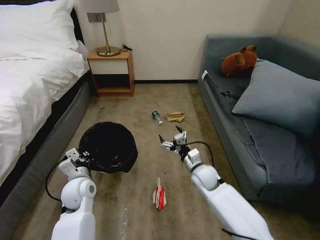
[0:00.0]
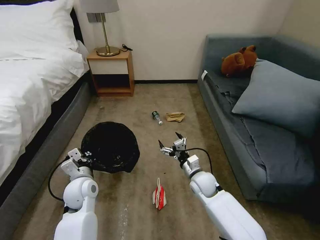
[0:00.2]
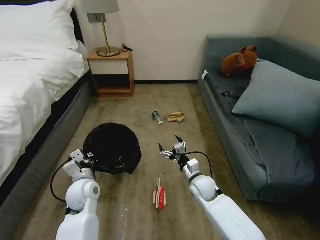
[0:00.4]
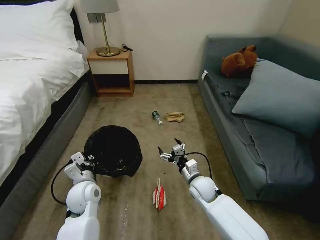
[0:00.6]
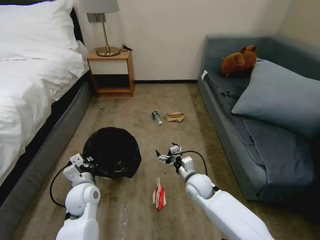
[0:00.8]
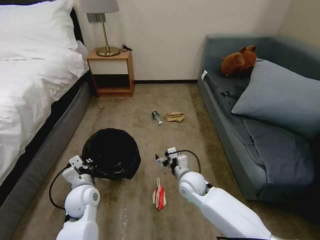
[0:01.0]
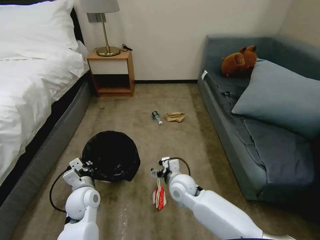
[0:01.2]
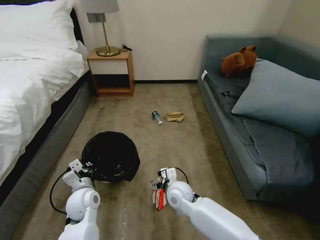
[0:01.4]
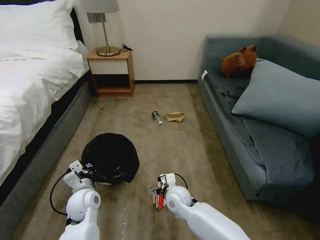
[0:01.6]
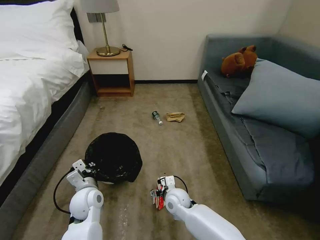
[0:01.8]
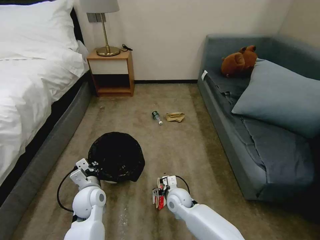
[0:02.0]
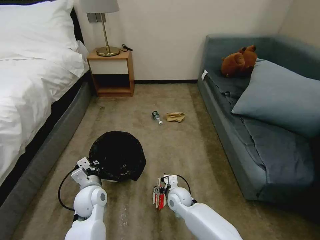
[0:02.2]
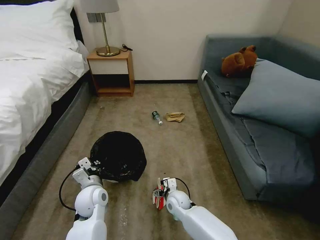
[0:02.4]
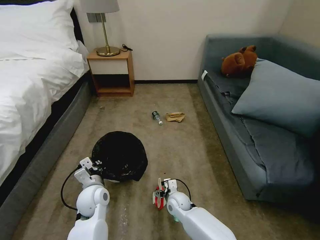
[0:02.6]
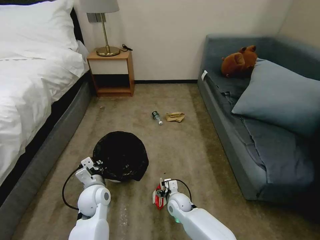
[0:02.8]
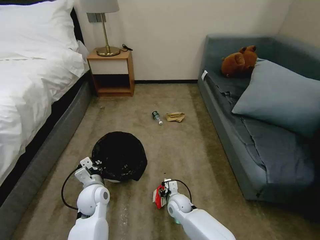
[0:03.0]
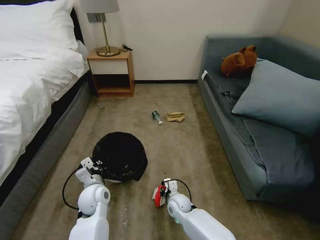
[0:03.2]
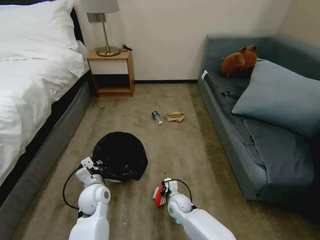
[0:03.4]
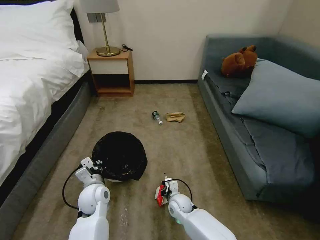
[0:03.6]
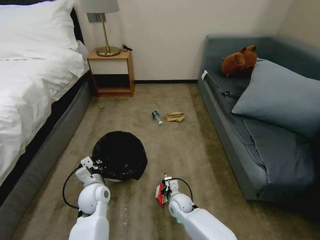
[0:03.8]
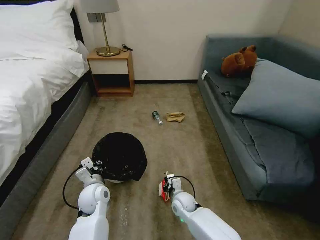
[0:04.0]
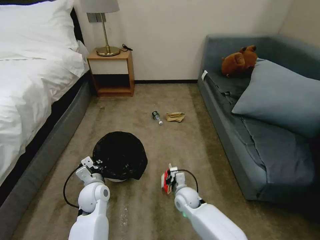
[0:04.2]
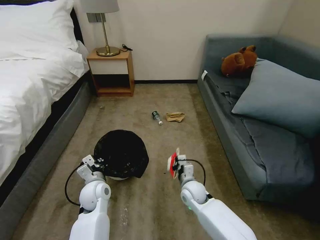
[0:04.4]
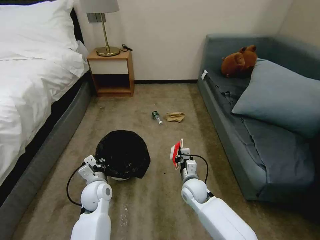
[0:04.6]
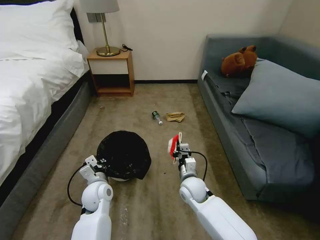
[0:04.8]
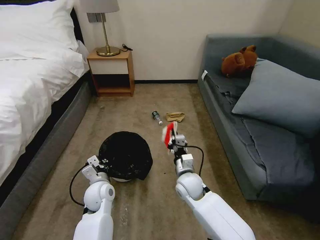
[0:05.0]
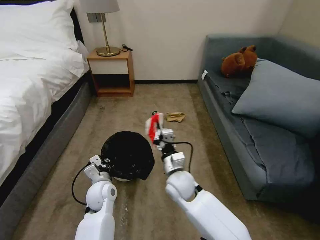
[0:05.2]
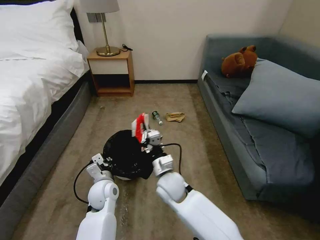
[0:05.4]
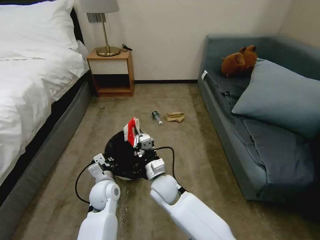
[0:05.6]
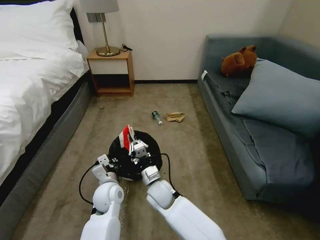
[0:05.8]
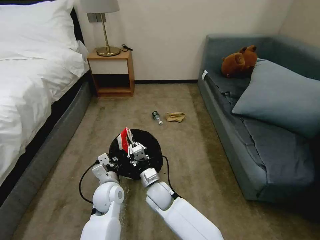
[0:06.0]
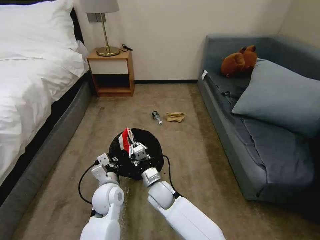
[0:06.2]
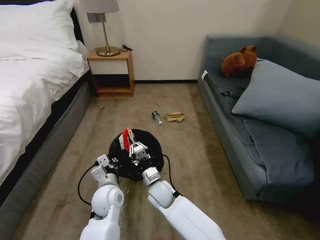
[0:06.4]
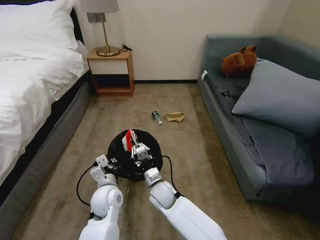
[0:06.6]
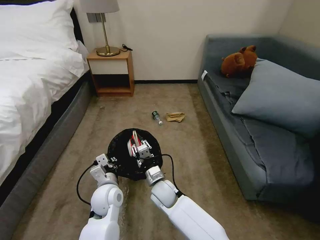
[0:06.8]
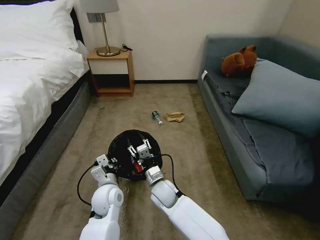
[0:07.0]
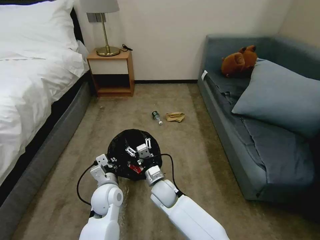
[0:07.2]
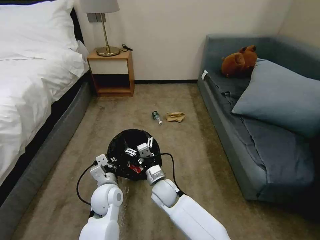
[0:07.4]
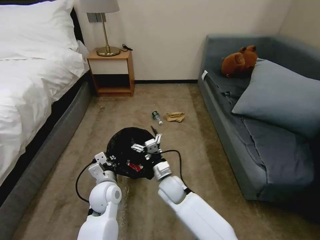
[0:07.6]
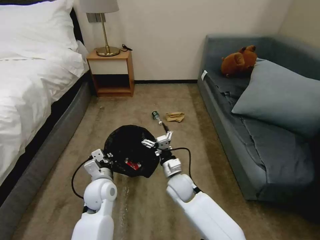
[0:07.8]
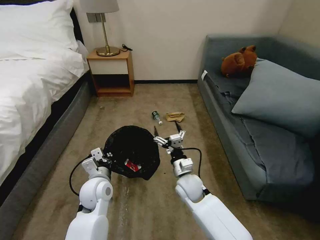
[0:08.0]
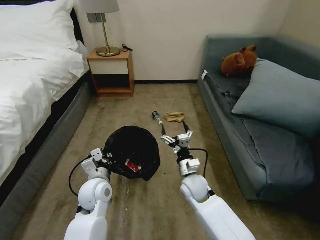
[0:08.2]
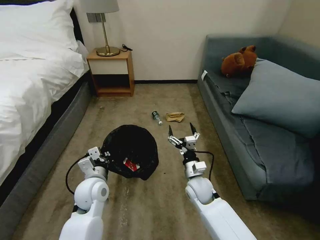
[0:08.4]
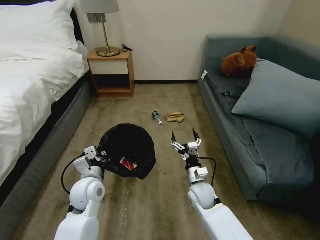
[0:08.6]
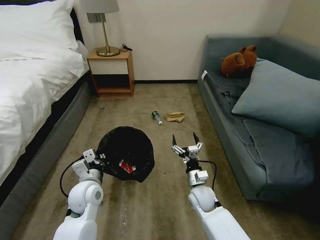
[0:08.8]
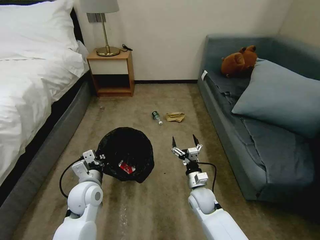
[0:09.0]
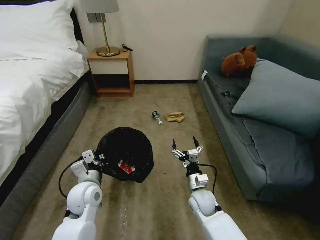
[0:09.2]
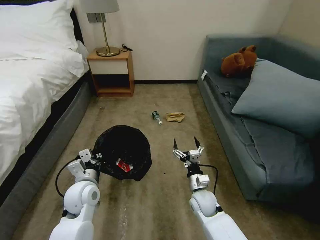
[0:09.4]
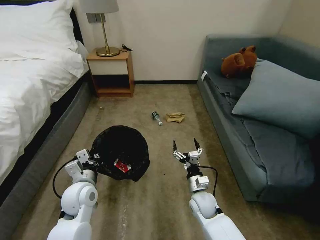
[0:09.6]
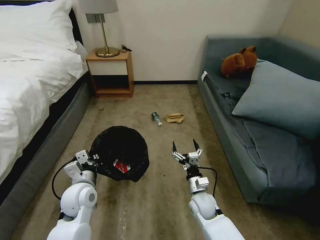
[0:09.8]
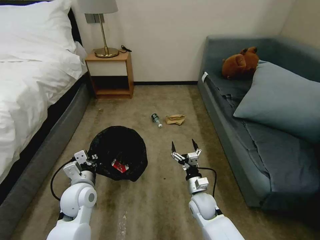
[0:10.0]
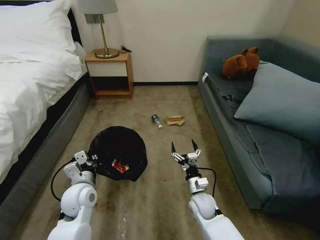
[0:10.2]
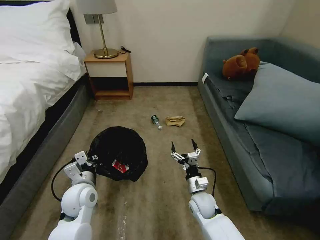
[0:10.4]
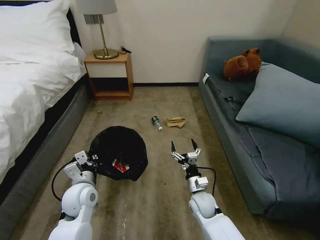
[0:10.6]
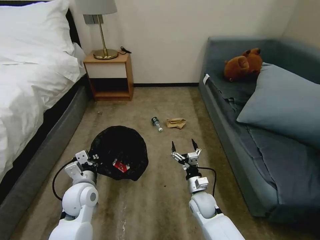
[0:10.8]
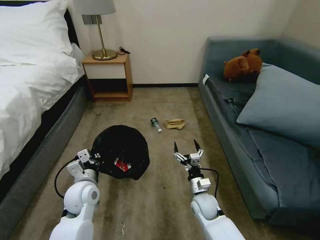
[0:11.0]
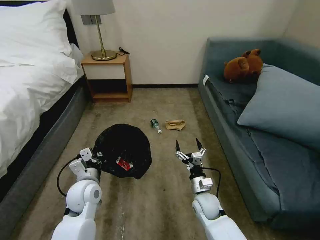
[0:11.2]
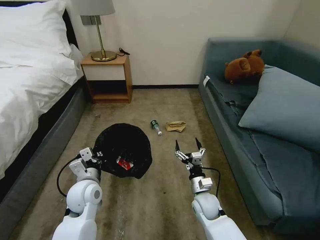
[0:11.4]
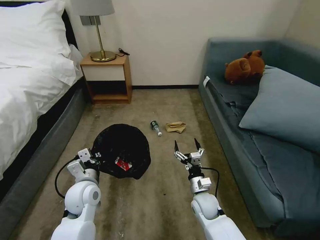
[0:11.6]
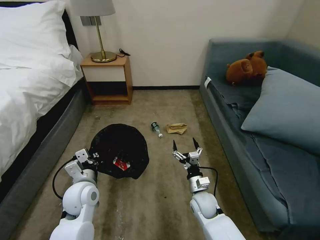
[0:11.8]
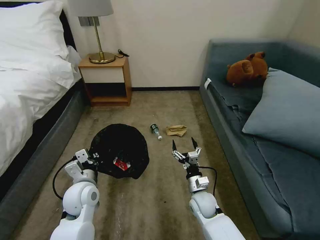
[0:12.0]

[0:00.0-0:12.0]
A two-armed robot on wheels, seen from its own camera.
Task of the whole recording: Pick up the trash bin, then pick up the garbage on the floor and place it into the trash bin.
0:00.0 to 0:01.6: The right gripper is displaced to the left, backward and downward by roughly 15 cm.
0:01.6 to 0:03.0: The right gripper heads downward, covering about 10 cm, and closes its fingers.
0:03.0 to 0:04.4: The right gripper goes roughly 10 cm upward, and closes its fingers.
0:04.4 to 0:06.0: The right gripper travels to the left by roughly 15 cm, while the left gripper moves to the right, about 5 cm.
0:06.0 to 0:07.6: The right gripper moves approximately 5 cm, and opens its fingers.
0:07.6 to 0:09.0: The right gripper shifts some 10 cm to the right. Meanwhile the left gripper heads to the left, covering roughly 5 cm.
0:09.0 to 0:10.4: The grippers make only small movements.

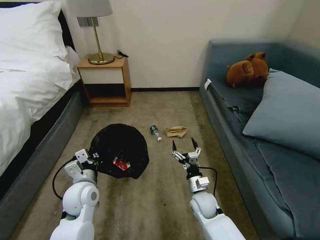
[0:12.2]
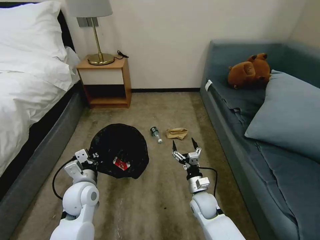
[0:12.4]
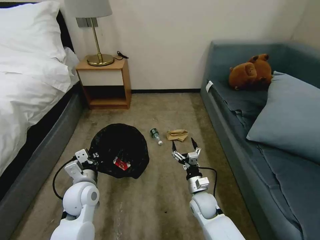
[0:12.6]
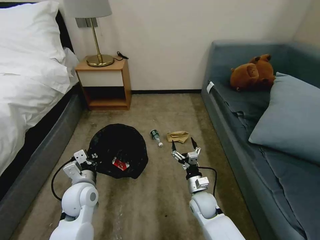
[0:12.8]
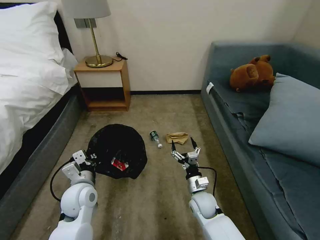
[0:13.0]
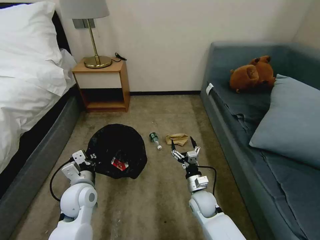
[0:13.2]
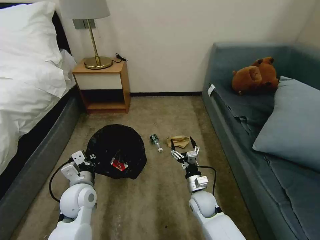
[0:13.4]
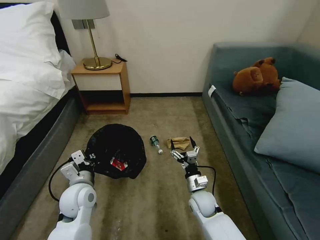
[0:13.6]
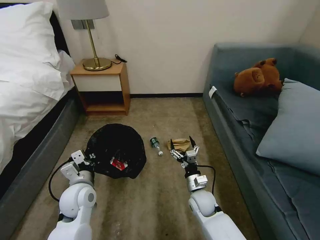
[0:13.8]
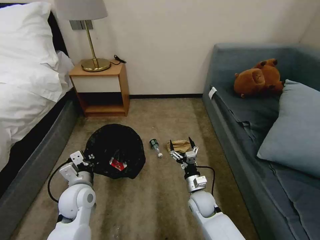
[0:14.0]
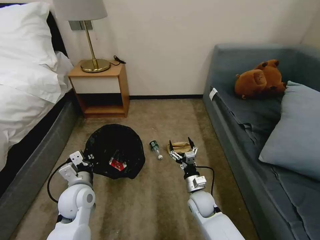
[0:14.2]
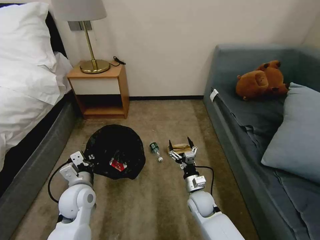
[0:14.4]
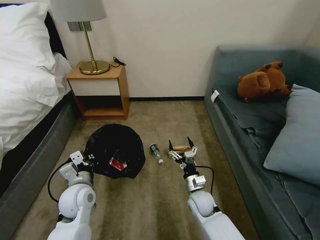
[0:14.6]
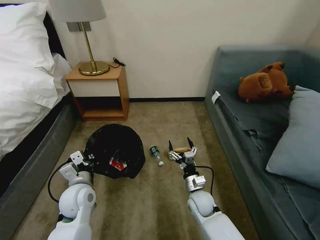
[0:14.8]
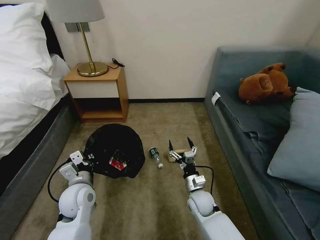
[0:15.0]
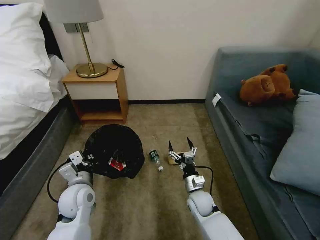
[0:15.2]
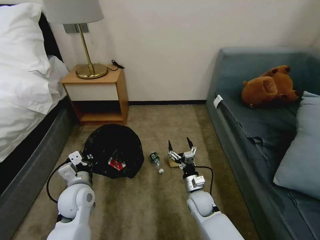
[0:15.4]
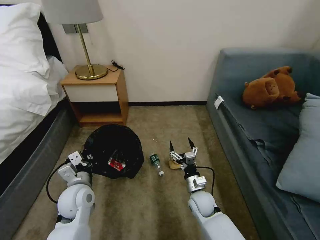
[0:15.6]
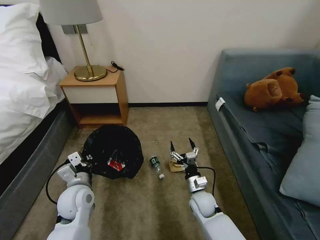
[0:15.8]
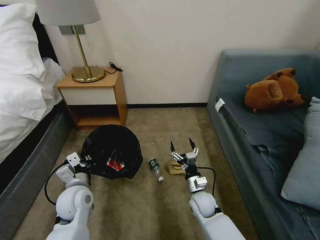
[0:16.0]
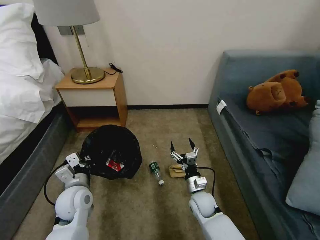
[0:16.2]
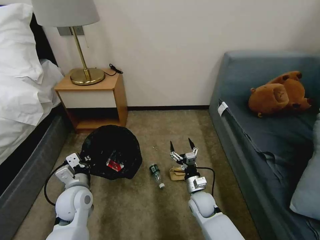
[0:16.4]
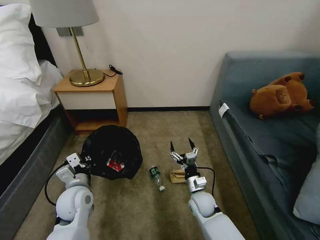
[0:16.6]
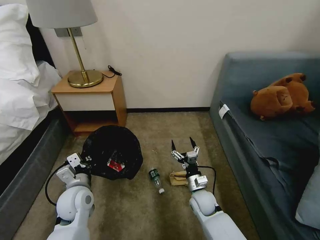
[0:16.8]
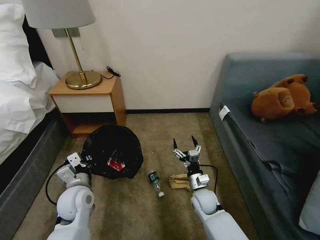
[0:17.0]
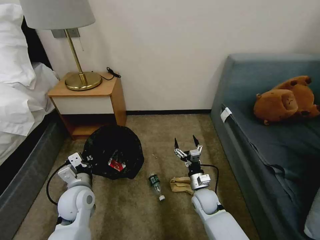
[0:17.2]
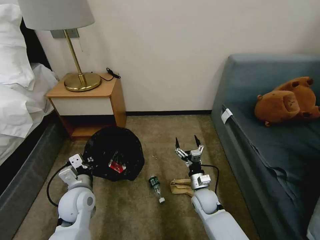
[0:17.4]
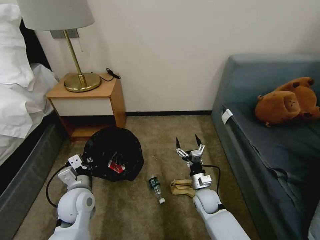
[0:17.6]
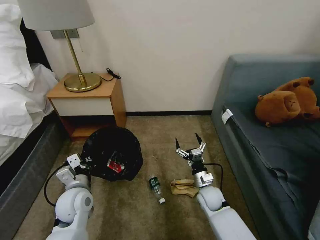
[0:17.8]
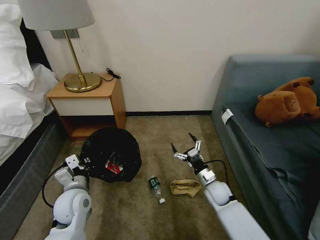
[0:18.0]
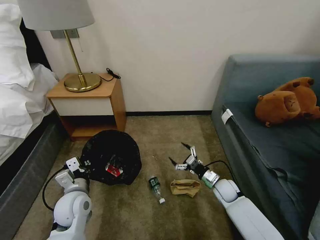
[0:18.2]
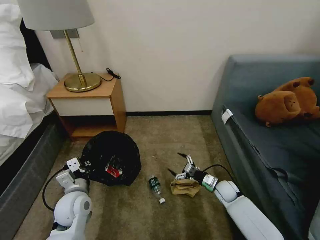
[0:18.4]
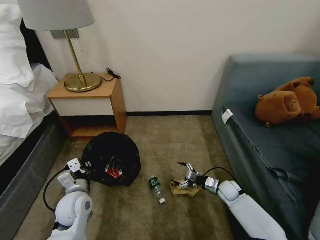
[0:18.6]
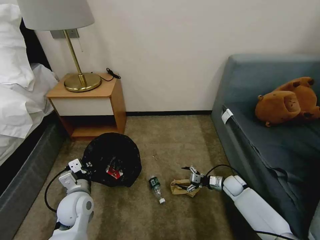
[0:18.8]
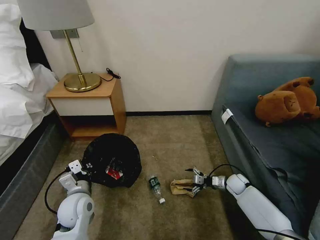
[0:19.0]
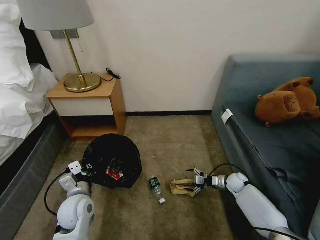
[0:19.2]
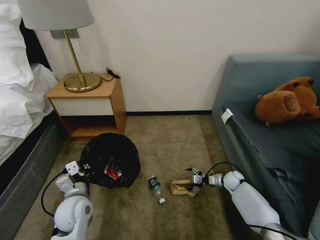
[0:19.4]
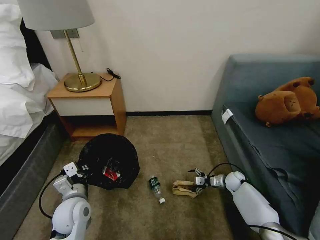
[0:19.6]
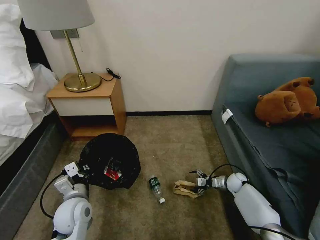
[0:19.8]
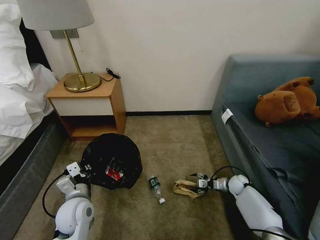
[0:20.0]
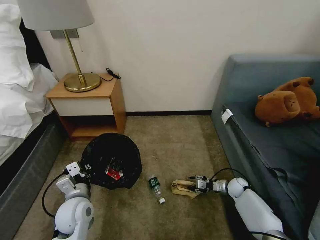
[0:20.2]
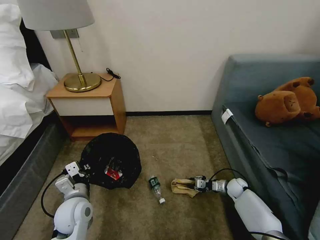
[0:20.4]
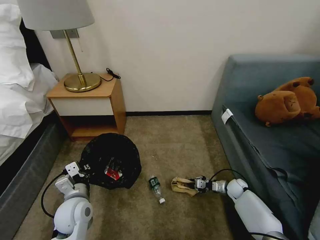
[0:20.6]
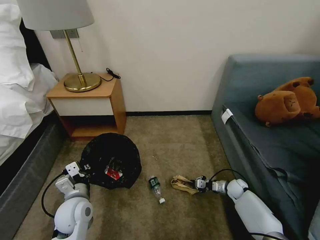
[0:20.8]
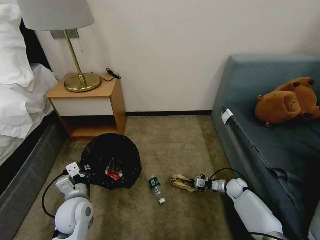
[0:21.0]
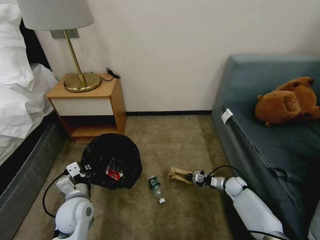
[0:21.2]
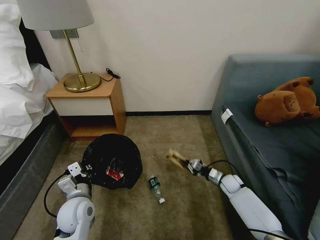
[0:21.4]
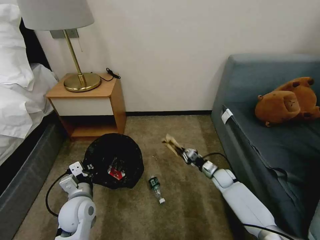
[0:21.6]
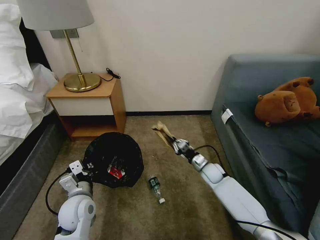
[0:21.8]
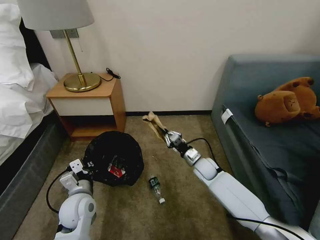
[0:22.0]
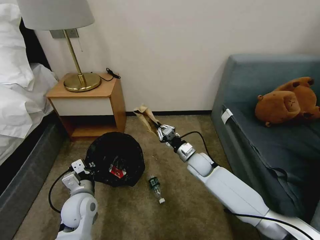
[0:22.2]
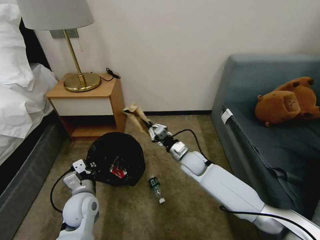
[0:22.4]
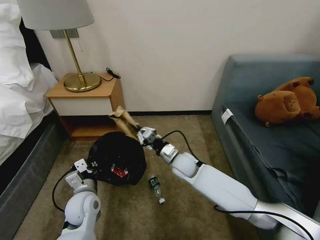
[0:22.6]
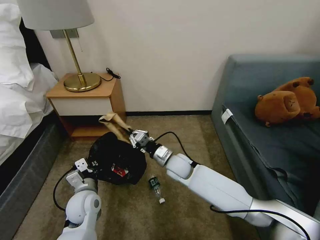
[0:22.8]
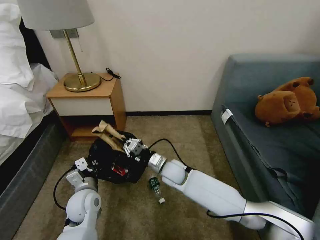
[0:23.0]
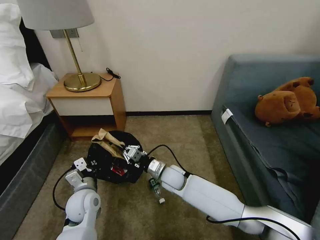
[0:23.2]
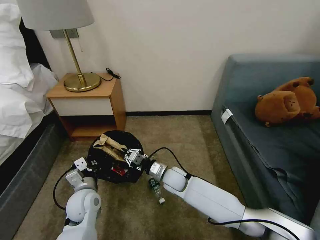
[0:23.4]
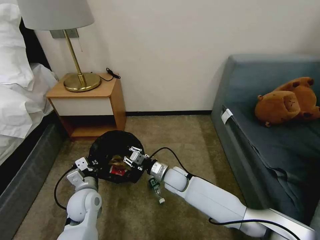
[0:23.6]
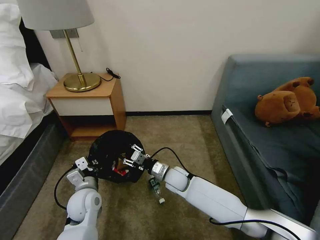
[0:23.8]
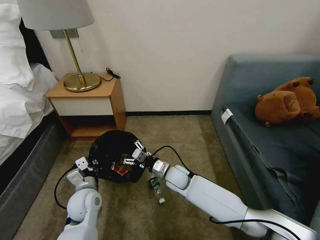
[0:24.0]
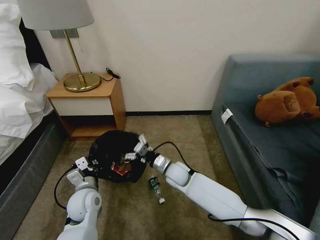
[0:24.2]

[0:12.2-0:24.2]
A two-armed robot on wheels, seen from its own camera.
Task of the whole recording: Pick up the trash bin, then pick up the garbage on the floor and place it into the trash bin.
0:16.6 to 0:18.2: The right gripper moves to the right and forward, some 15 cm.
0:18.2 to 0:19.8: The right gripper goes roughly 15 cm to the right, forward and downward.
0:19.8 to 0:21.2: The right gripper closes.
0:21.2 to 0:22.6: The right gripper moves to the left and upward, roughly 35 cm.
0:22.6 to 0:24.2: The right gripper opens.
